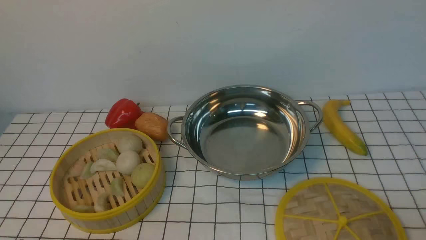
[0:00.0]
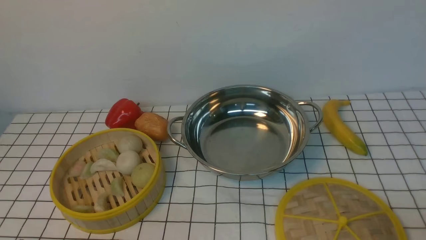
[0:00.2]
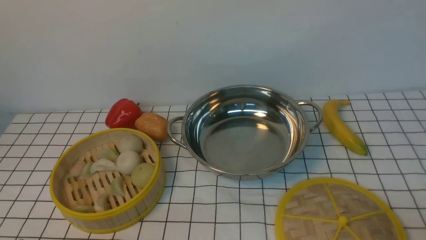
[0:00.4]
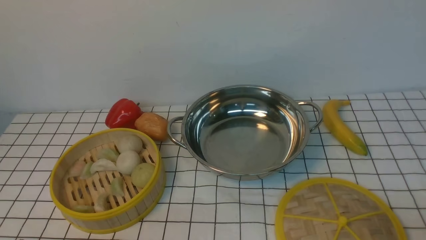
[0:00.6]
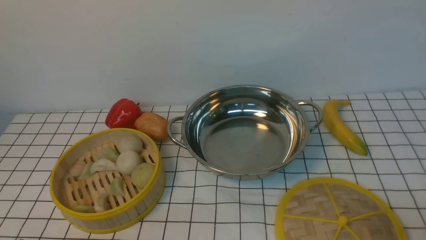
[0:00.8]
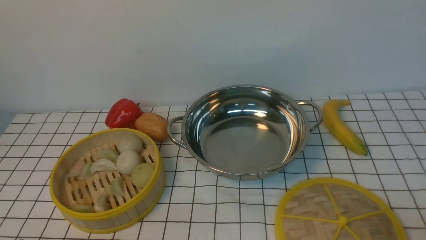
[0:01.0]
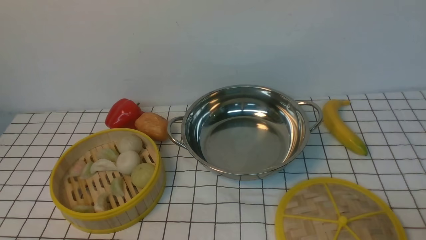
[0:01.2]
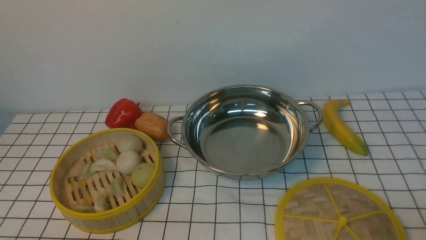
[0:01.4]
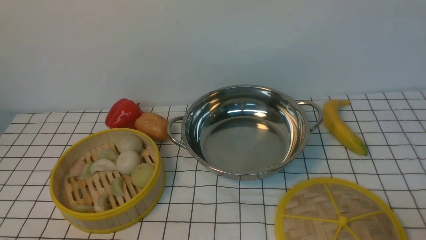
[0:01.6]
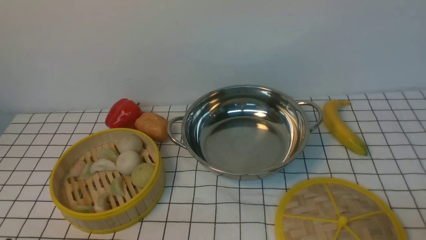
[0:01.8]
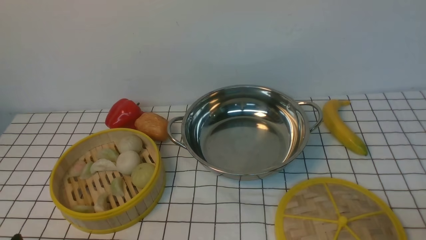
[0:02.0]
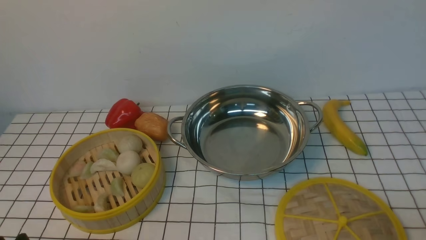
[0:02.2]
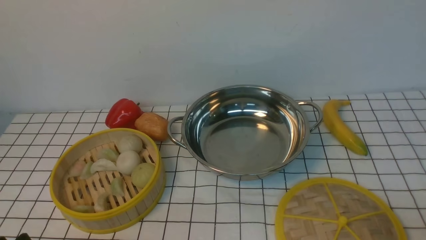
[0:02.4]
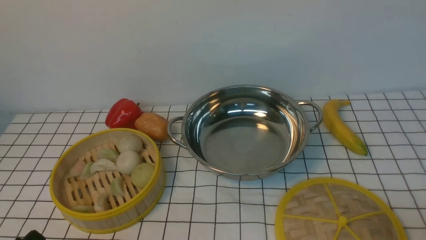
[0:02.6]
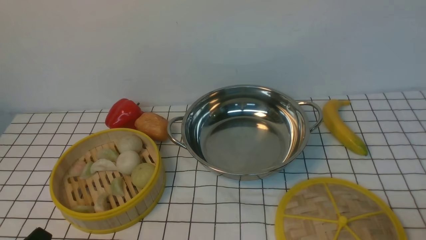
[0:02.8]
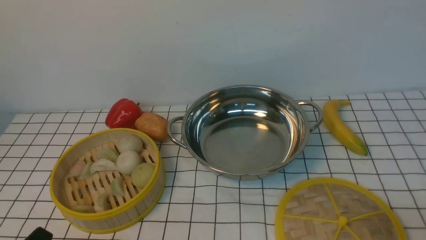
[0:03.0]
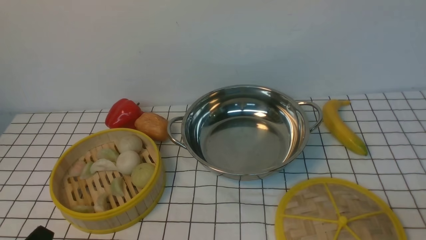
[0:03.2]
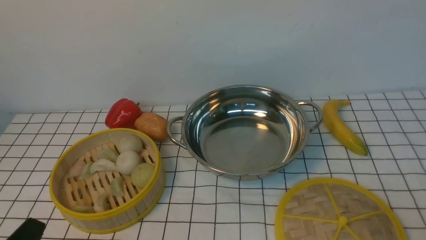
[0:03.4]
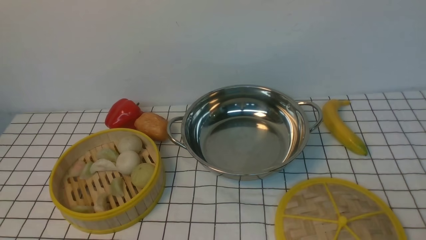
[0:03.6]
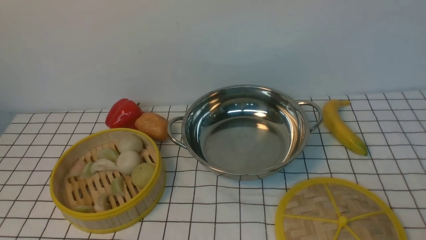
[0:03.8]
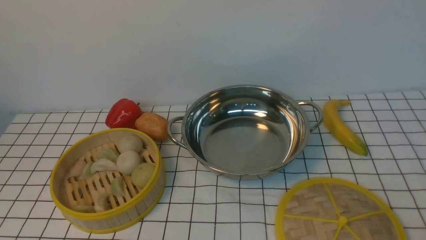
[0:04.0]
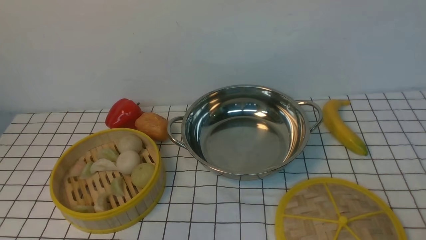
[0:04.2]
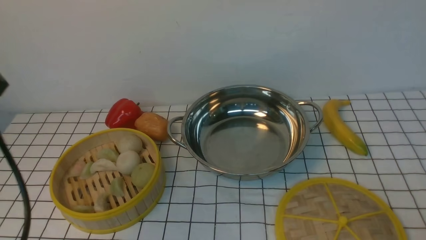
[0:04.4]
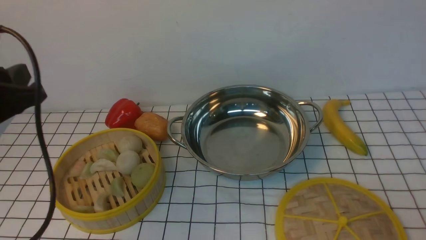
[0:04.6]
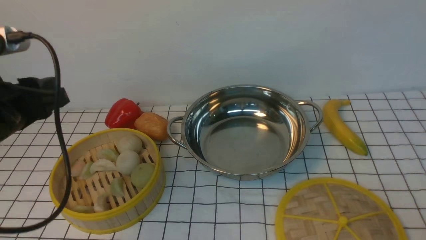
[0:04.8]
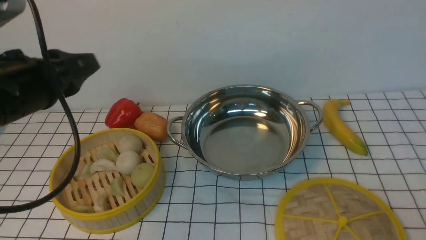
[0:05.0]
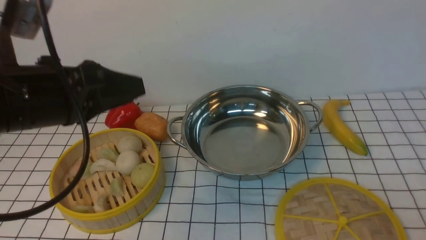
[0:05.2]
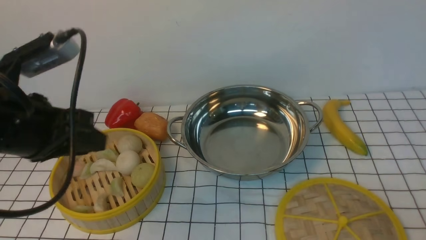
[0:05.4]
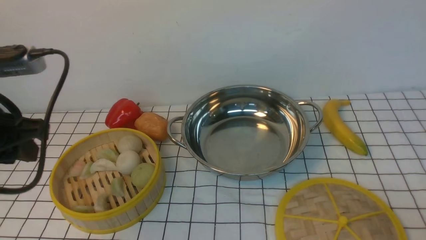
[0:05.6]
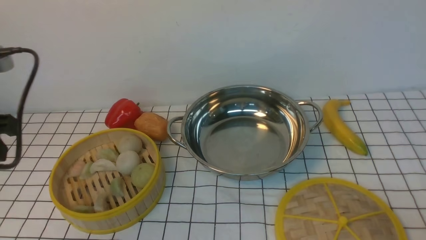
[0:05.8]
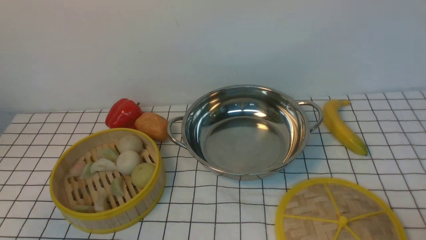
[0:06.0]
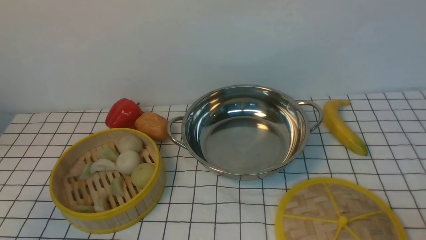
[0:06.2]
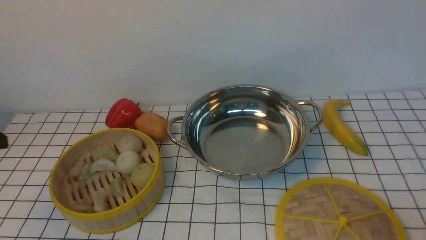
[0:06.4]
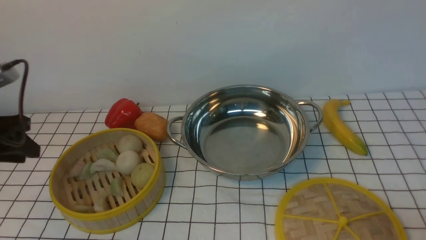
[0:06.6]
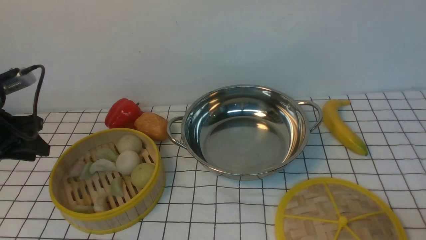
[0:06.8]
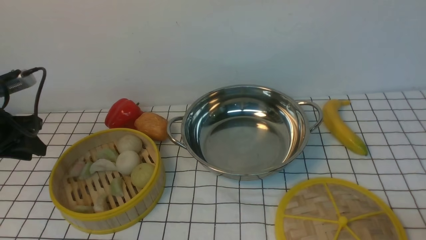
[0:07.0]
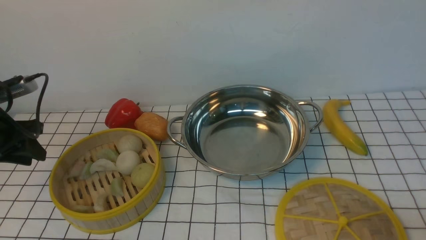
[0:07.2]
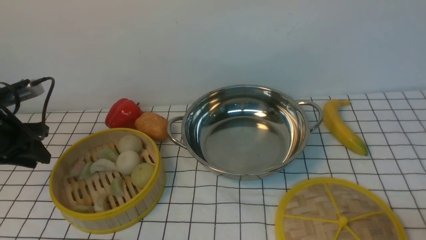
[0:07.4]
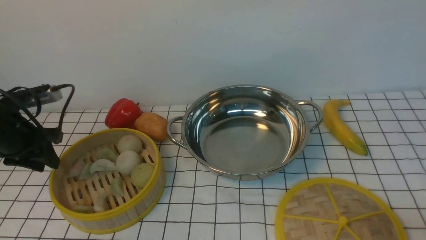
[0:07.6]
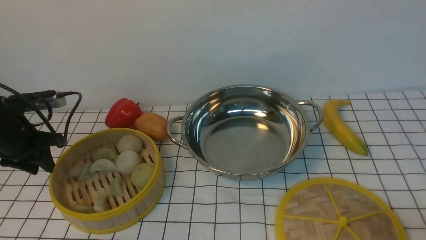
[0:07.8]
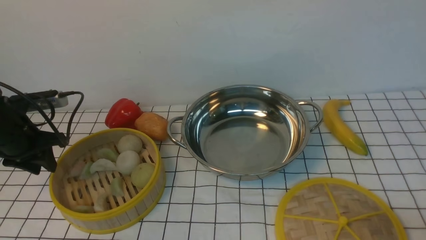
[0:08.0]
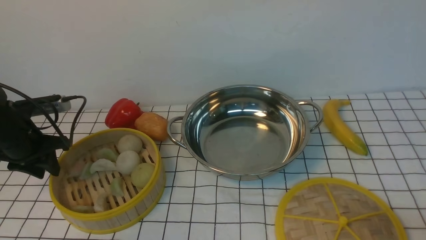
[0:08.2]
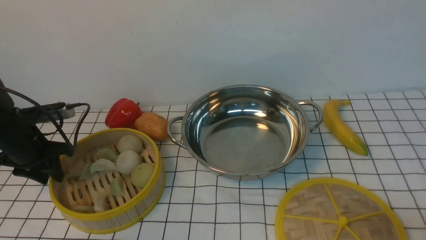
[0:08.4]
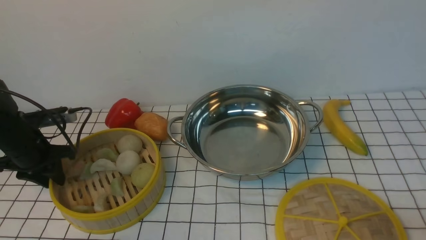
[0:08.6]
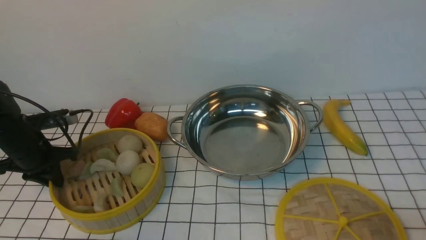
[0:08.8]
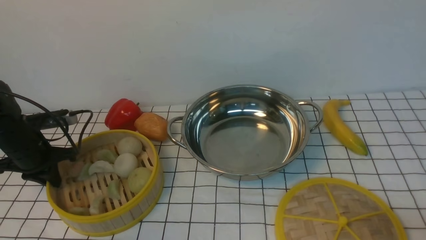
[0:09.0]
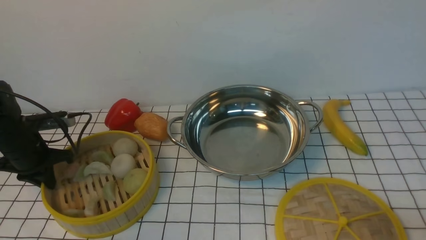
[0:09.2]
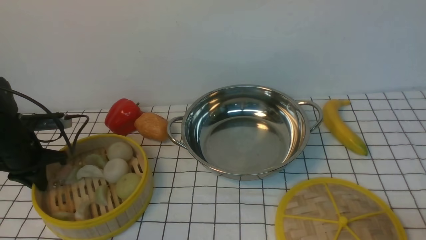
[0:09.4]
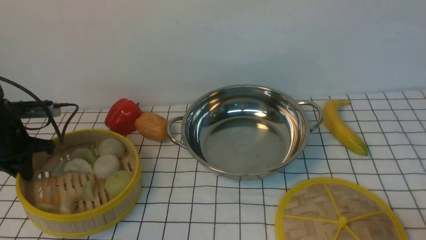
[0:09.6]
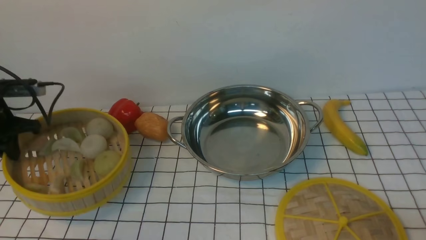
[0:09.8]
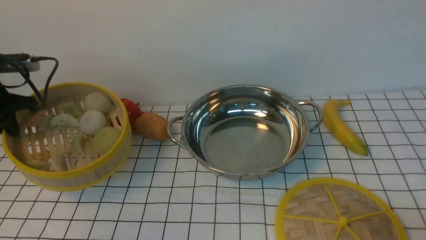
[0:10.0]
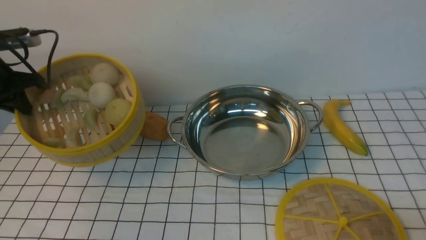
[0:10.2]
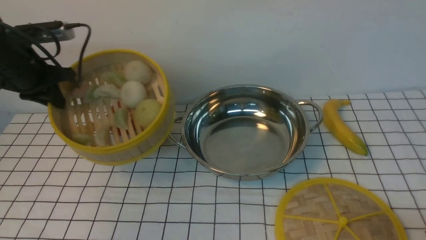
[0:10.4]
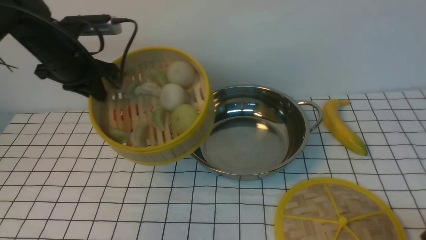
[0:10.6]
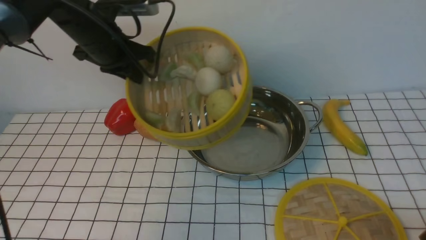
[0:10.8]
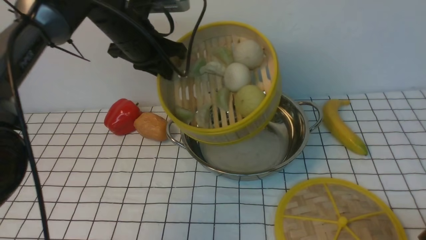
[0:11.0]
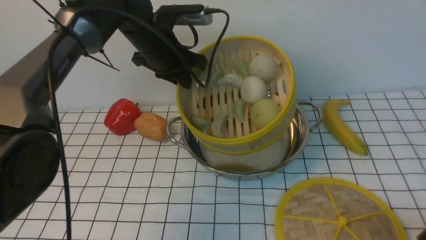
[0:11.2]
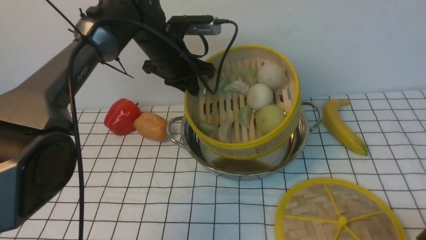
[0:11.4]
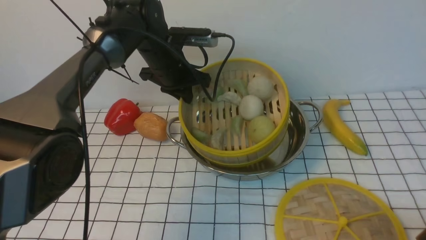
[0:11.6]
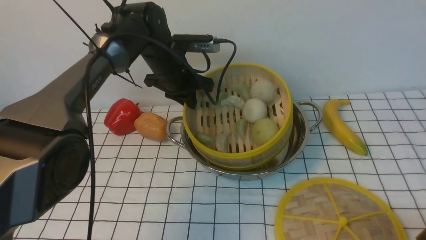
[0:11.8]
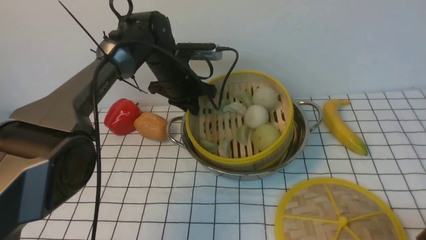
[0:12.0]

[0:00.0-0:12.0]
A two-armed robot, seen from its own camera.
Task of the whole recording: place the steamer in the pot on the white tablecloth, and put the lid on the steamer.
Step, 0:00.0 to 0:09.6: use the left arm to lift the steamer closest to it.
0:03.0 to 0:04.4: The left gripper heads upward and forward, covering roughly 20 cm.
0:04.4 to 0:06.0: The left gripper heads to the left, covering some 10 cm.
0:06.0 to 0:07.6: The left gripper is displaced forward and downward by some 20 cm.
0:07.6 to 0:09.0: The left gripper travels downward by roughly 5 cm, and closes its fingers.
0:09.0 to 0:10.4: The left gripper goes approximately 15 cm upward.
0:10.4 to 0:12.0: The left gripper travels to the right by roughly 20 cm.

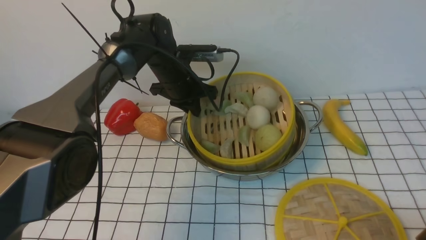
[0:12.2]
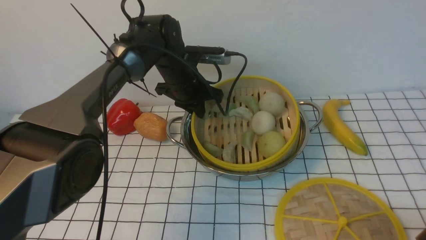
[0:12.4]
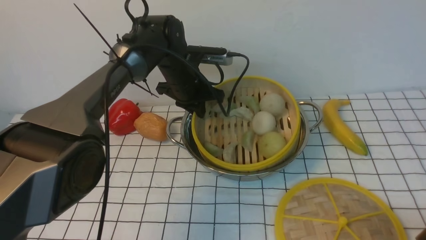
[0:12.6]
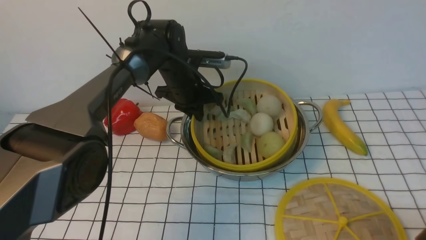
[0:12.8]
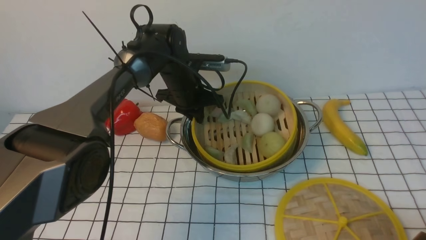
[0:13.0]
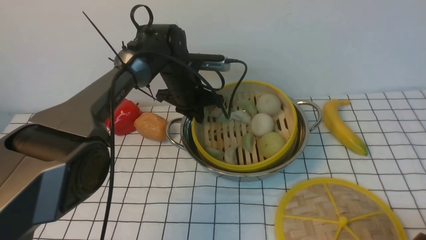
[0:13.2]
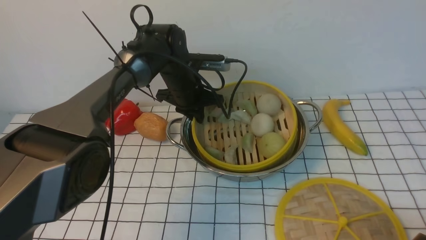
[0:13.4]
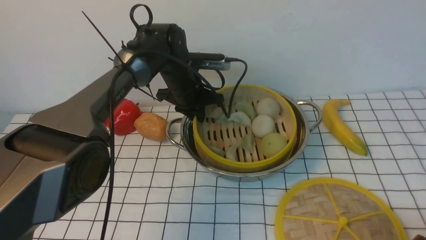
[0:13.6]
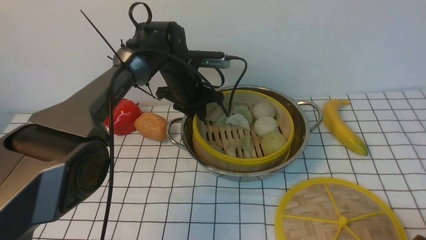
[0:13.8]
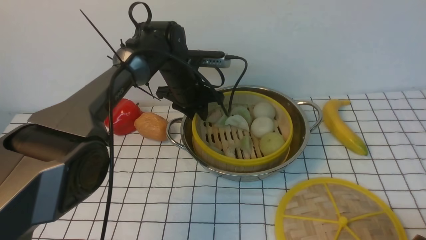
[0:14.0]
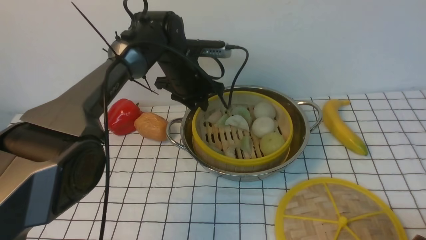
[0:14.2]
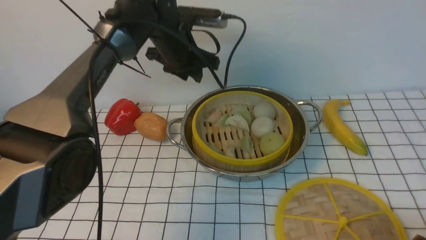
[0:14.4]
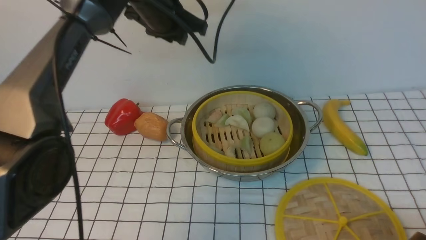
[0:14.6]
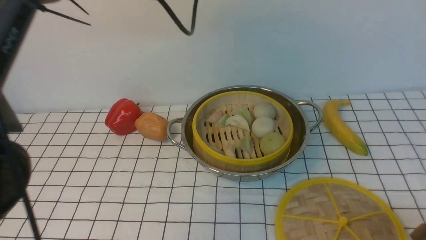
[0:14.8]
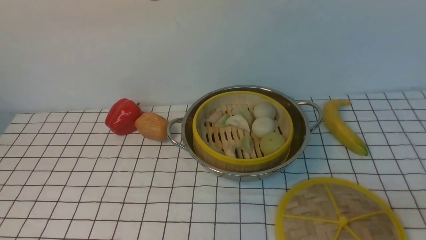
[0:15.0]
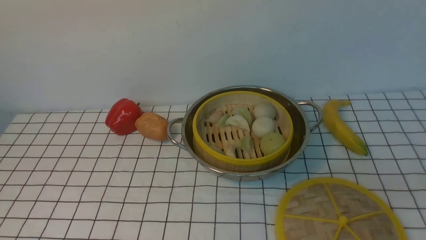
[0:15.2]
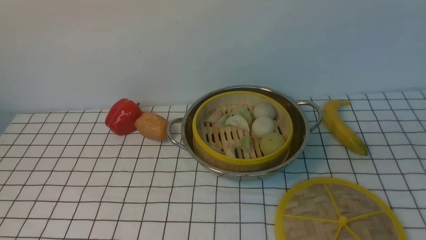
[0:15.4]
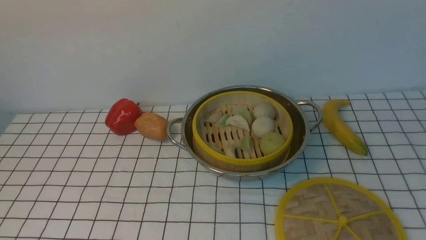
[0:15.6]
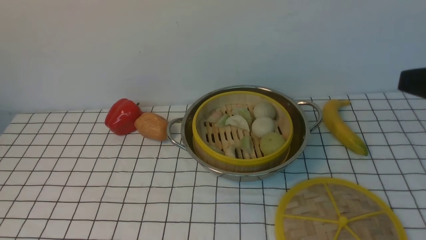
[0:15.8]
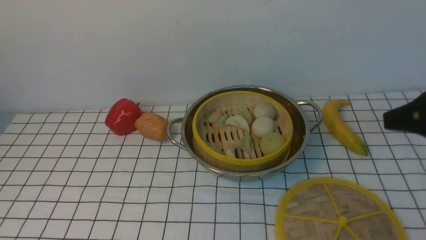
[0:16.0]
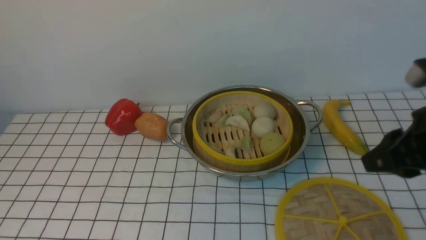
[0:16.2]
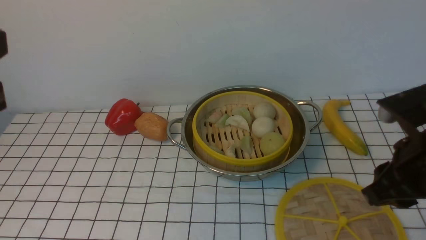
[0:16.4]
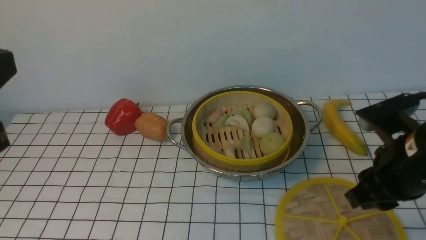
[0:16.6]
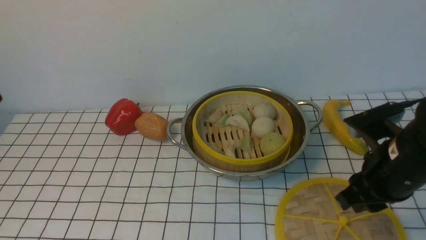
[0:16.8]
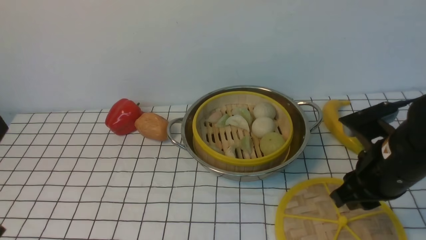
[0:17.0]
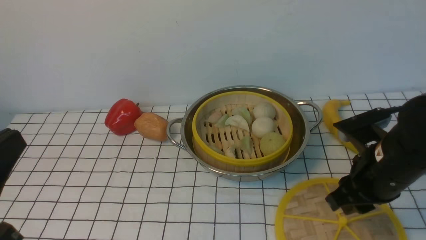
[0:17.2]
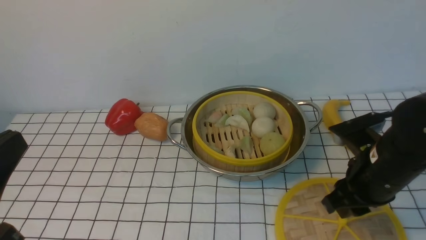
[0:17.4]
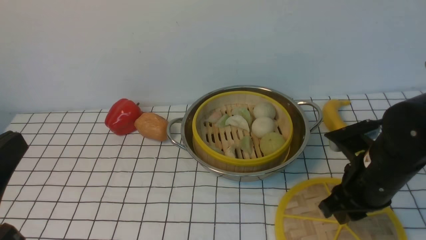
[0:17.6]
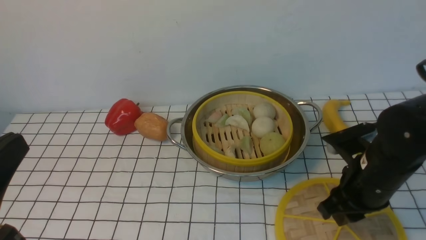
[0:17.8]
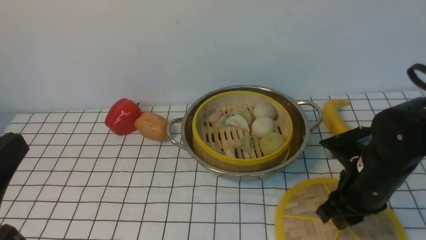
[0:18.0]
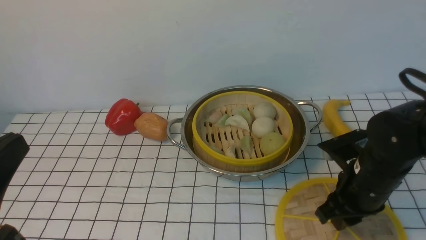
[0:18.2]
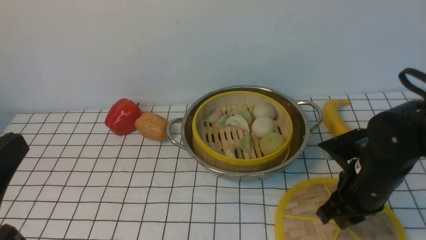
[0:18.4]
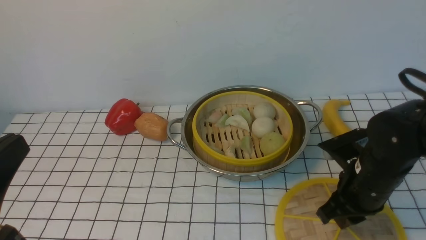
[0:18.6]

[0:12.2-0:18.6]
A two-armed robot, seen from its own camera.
Task of the whole recording: place the steamer in the pot on the white tablecloth, and put the lid on the steamer.
Step, 0:12.2 to 0:14.2: use the left arm to put the steamer into the iron steamer pot in the middle.
0:12.2 to 0:13.8: The left gripper opens.
0:13.8 to 0:15.4: The left gripper heads upward and backward, covering approximately 40 cm, and closes; the right gripper travels upward by about 15 cm.
0:15.4 to 0:17.0: The right gripper shifts about 20 cm forward, downward and to the left.
0:17.0 to 0:18.6: The right gripper moves downward, approximately 5 cm.
